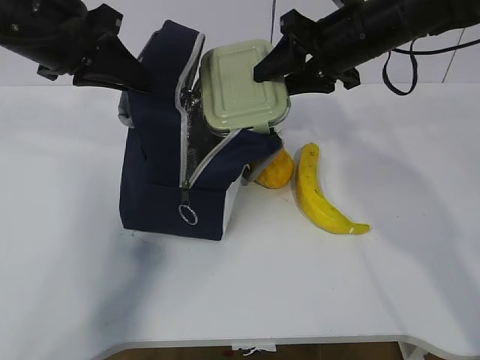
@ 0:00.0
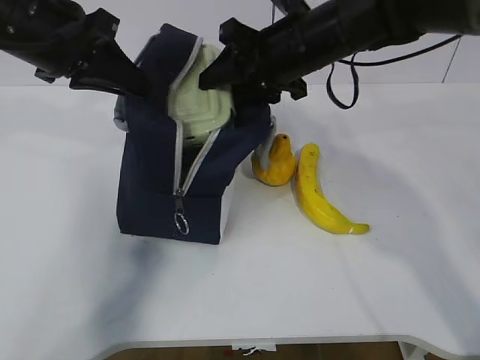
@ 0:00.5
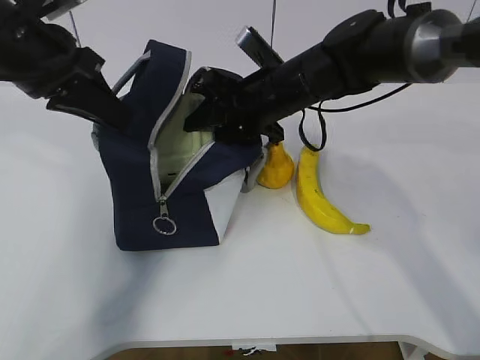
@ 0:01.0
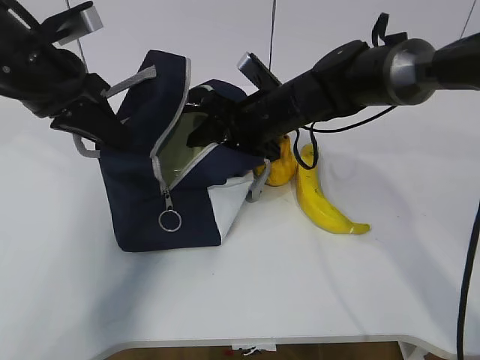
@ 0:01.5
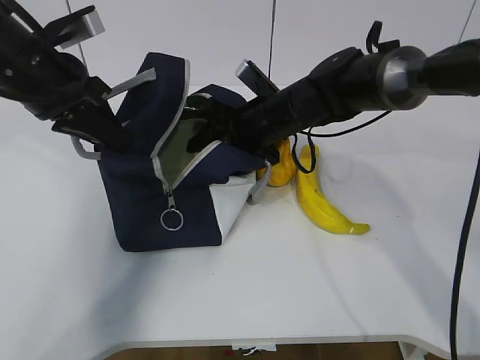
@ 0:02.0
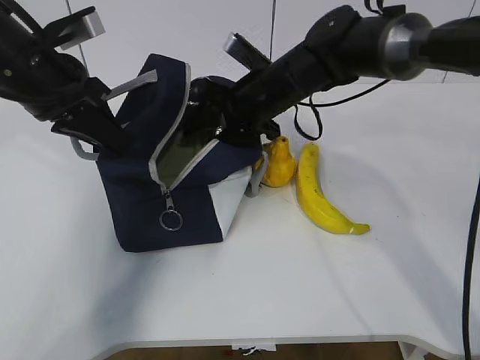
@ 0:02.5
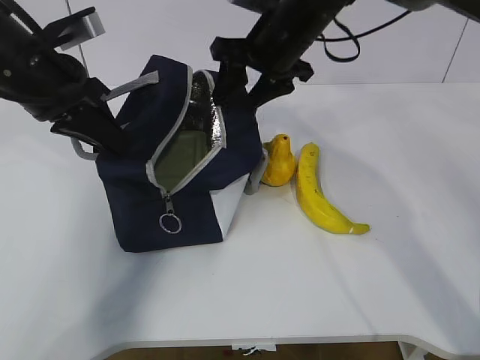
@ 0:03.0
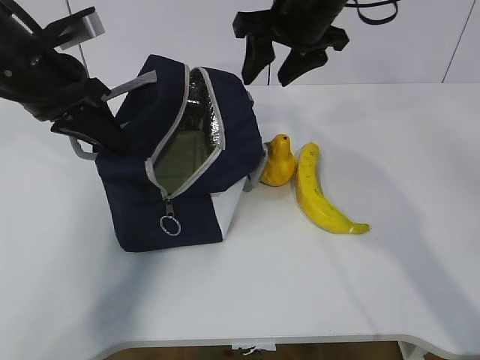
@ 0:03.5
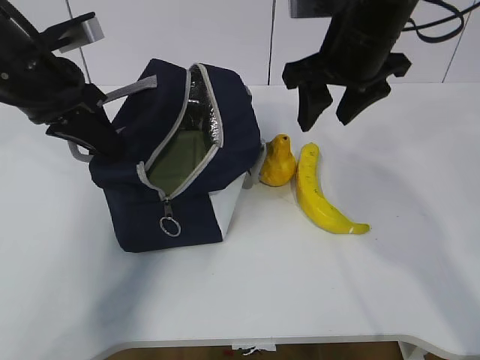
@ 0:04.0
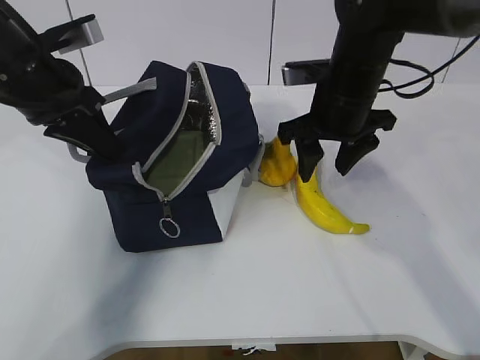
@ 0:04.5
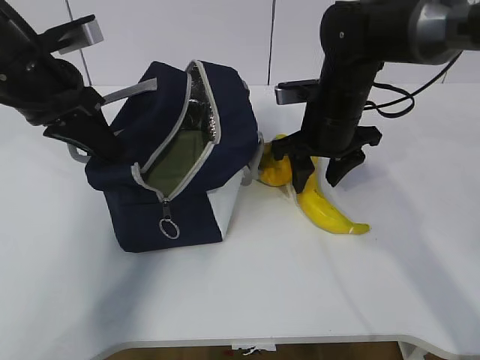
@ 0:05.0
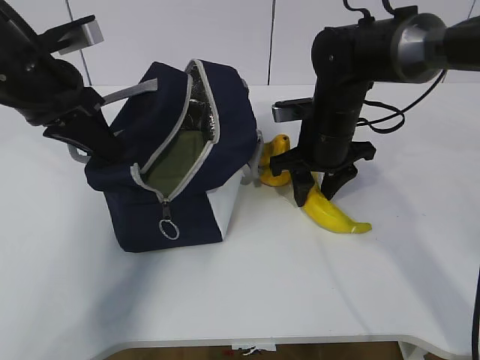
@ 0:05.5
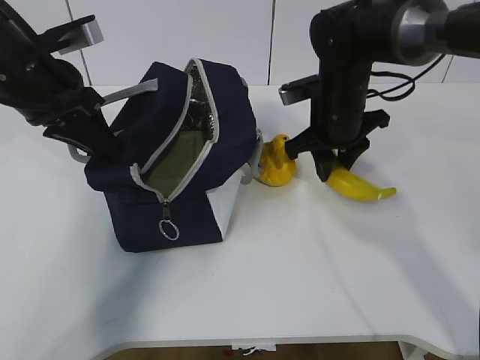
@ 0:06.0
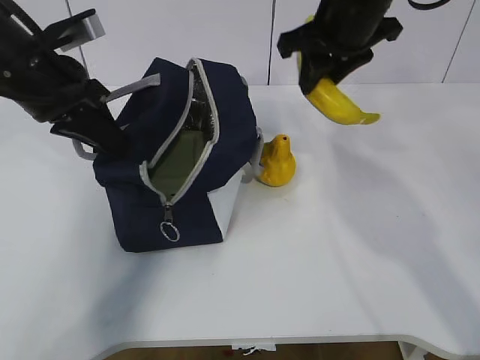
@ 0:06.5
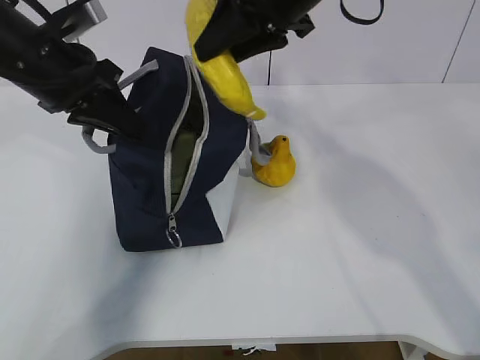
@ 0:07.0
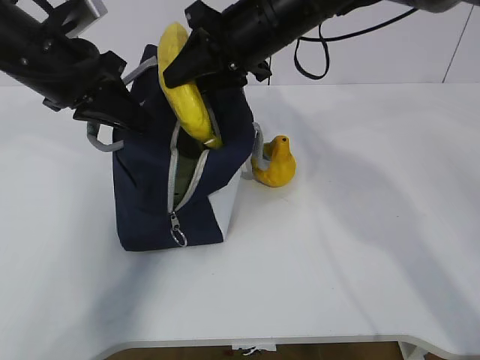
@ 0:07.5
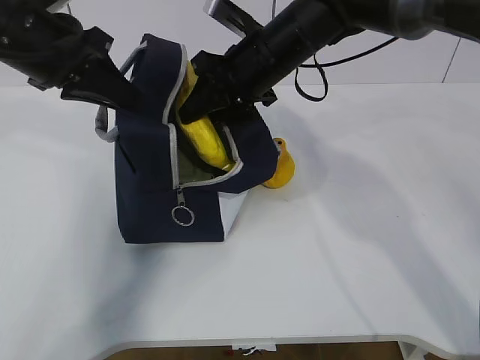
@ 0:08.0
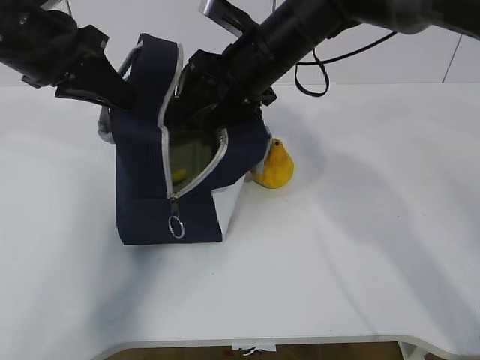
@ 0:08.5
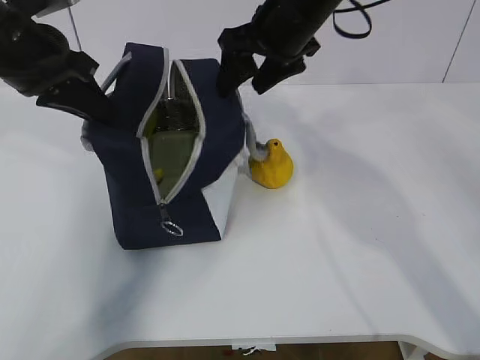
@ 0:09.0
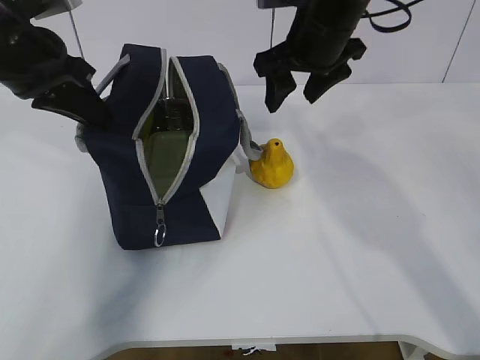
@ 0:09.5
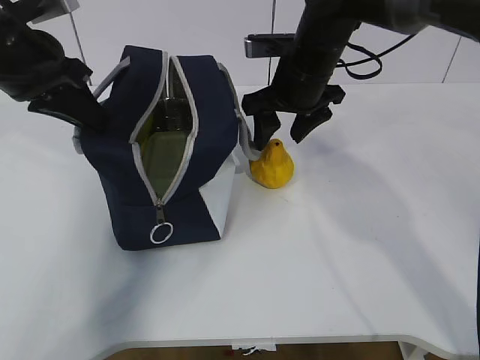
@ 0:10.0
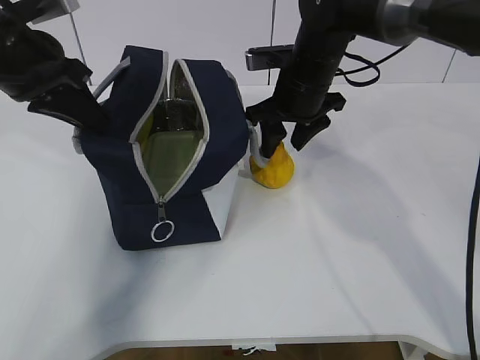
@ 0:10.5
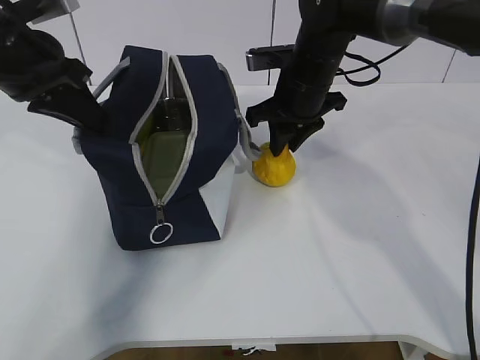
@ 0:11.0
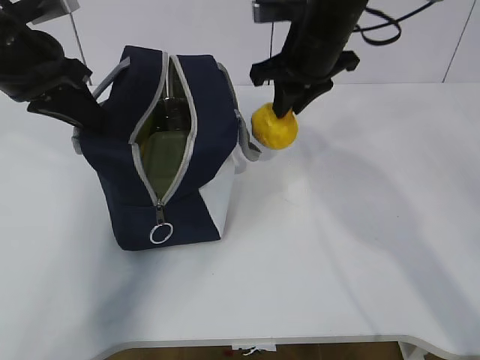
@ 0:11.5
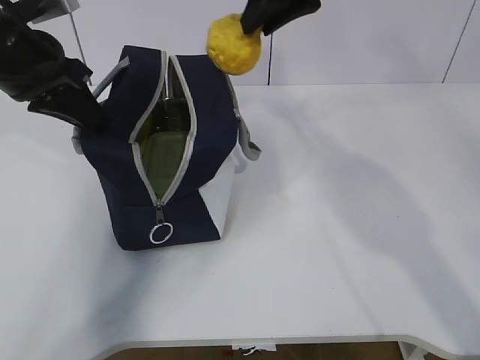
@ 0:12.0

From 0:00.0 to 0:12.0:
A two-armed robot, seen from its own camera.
Step, from 0:00.0 to 0:02.0: Grab the banana with your right hand.
Step, from 0:02.5 to 0:04.0: Place it into the bag with your right hand.
Step, from 0:04.5 to 0:06.5: Grab the pear with your right hand.
Step, from 0:07.0 to 0:08.0: Secure the lunch bag with your left hand.
Step, from 0:08.5 to 0:09.0: Grab the lunch bag with your right hand.
Step, from 0:09.5 to 0:11.0: Move the lunch bag to the right.
From 0:00.0 to 0:02.0: The right gripper travels downward and to the left by approximately 15 cm.
From 0:02.0 to 0:04.0: The right gripper shifts some 15 cm upward and to the right.
From 0:04.0 to 0:06.0: The right gripper is displaced downward by some 10 cm, and closes.
From 0:06.0 to 0:08.0: The right gripper goes roughly 10 cm to the left and upward.
From 0:08.0 to 0:10.0: The right gripper opens its fingers.
From 0:10.0 to 0:12.0: The right gripper heads upward, covering about 15 cm, and closes.

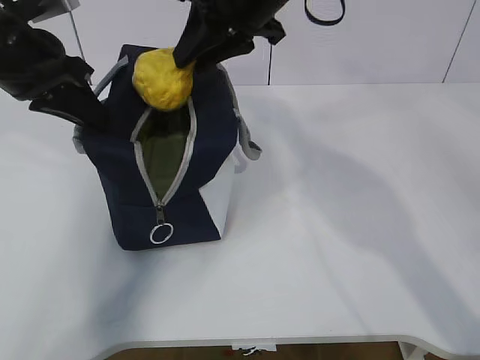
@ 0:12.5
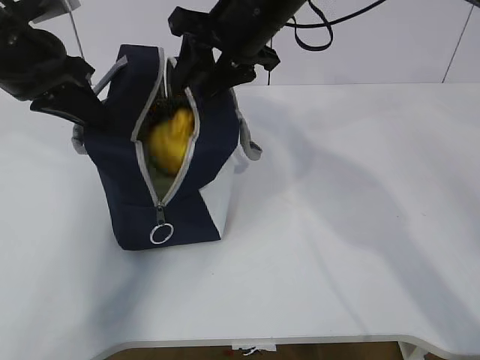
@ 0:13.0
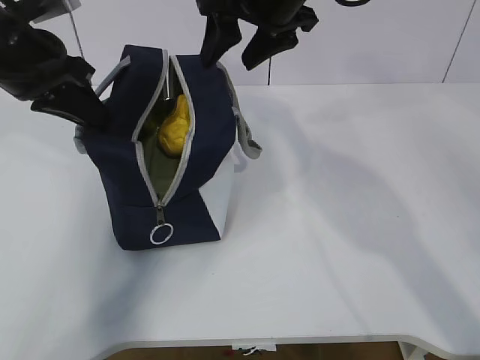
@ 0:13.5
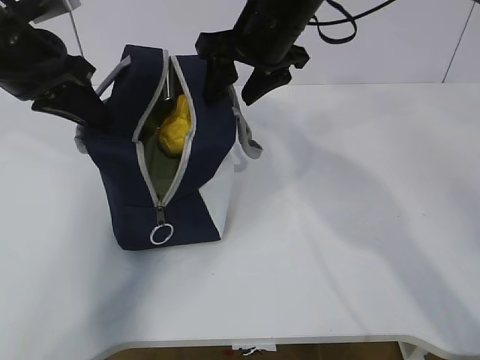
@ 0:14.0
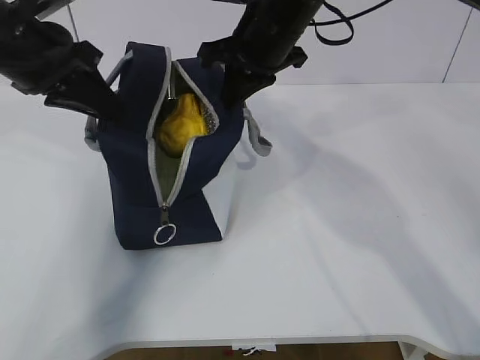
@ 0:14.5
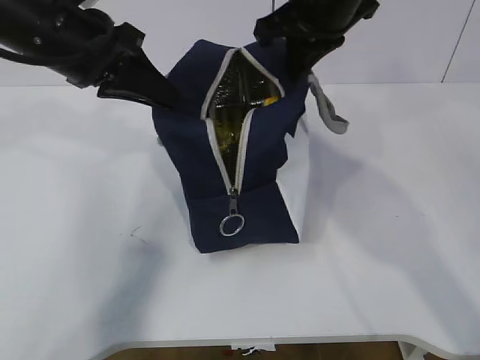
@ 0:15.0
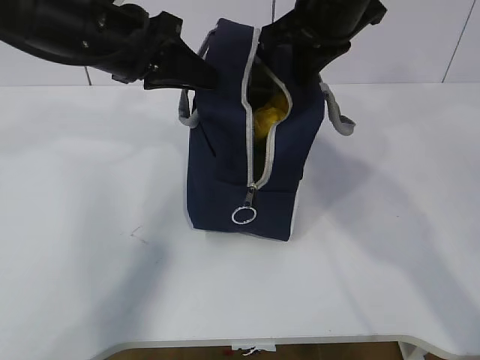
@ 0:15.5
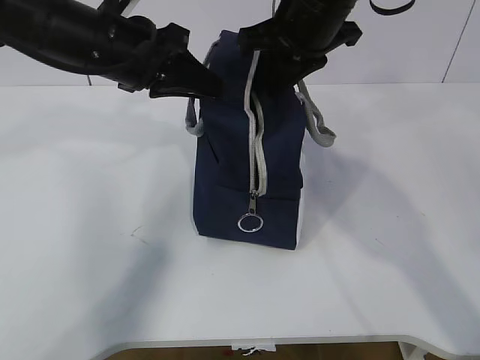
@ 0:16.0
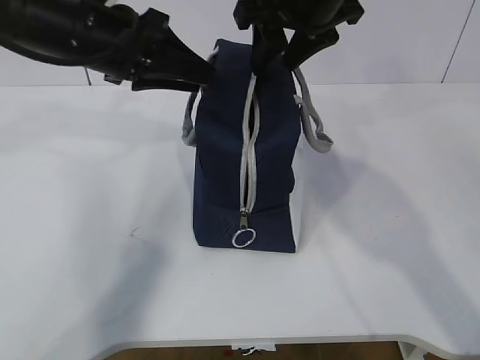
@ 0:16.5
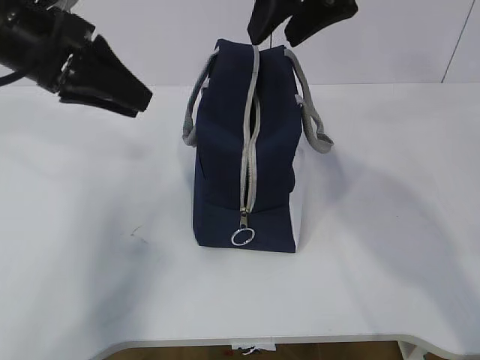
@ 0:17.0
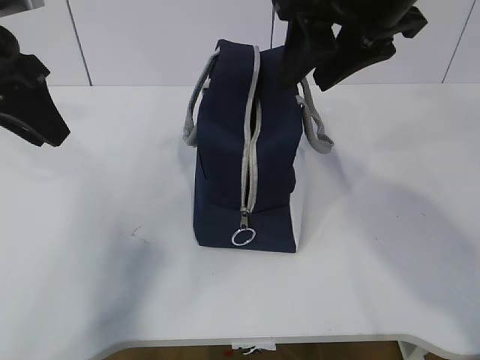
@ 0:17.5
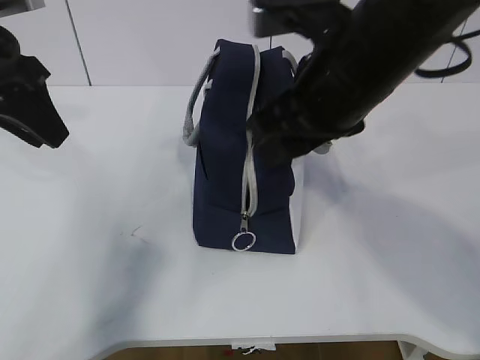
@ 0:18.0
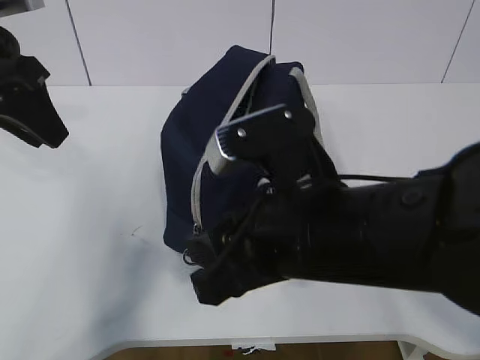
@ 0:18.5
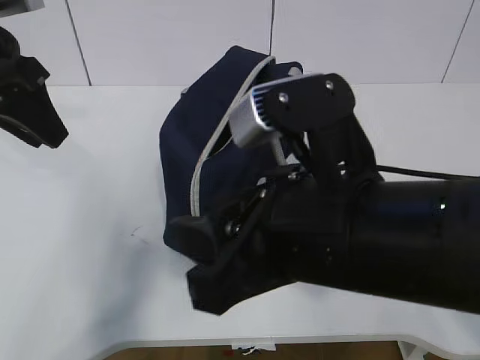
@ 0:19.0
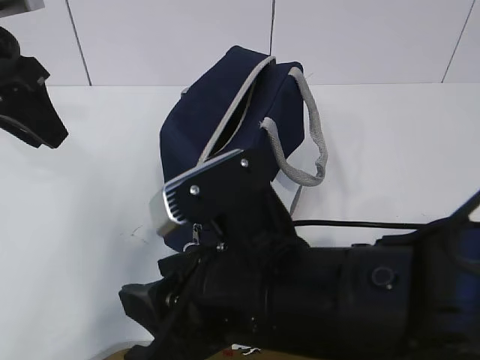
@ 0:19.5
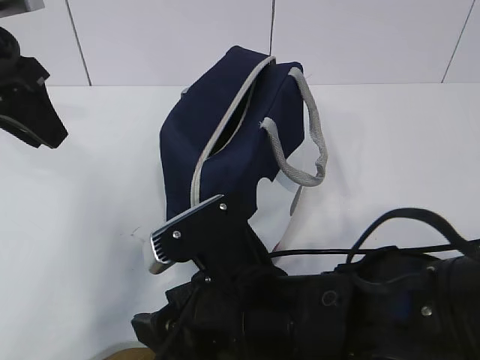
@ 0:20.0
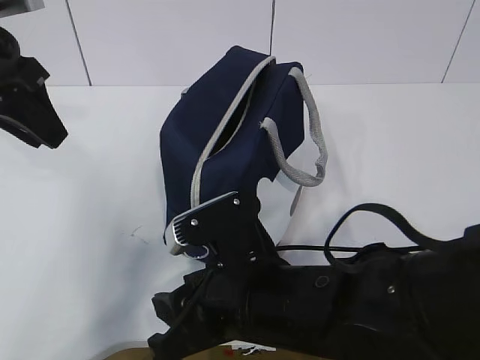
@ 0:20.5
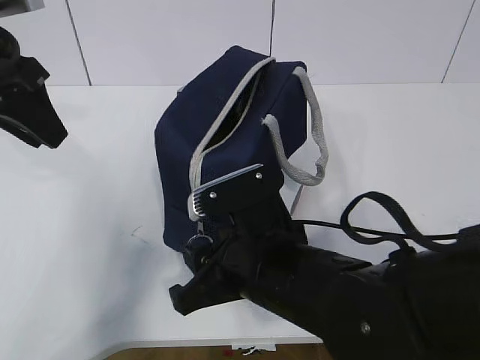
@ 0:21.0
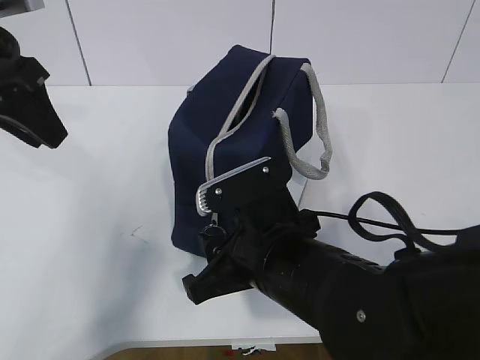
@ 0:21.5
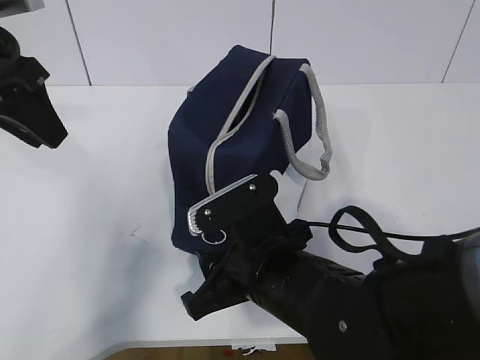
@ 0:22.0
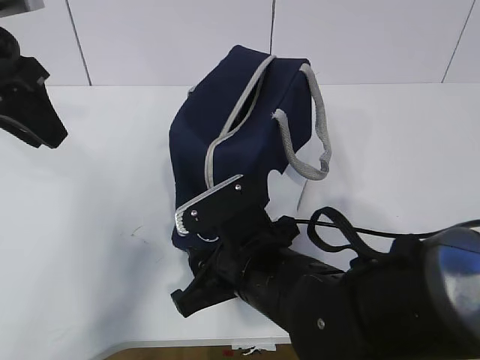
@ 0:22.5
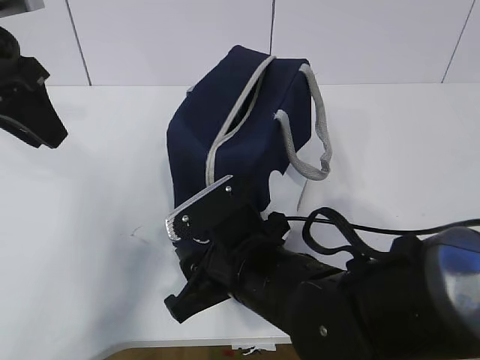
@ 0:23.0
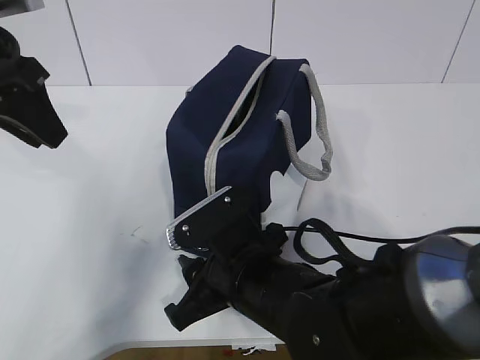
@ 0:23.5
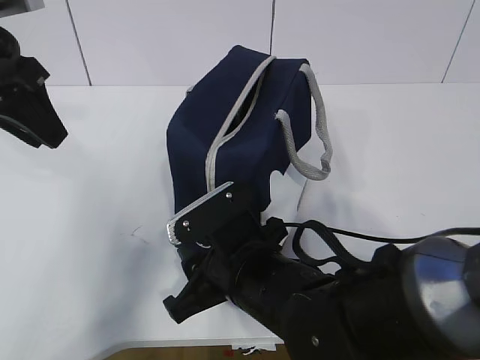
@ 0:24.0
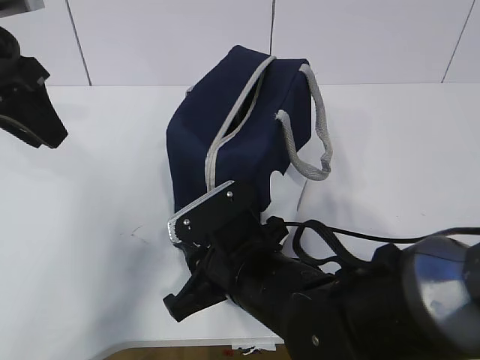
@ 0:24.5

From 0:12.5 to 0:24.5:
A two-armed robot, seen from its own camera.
From 0:12.5 to 0:14.5: The right gripper heads downward, covering roughly 5 cm, and opens, then closes once more.
From 0:14.5 to 0:16.5: The right gripper goes some 5 cm upward, and opens up; the left gripper shifts roughly 5 cm to the right, and opens its fingers.
From 0:16.5 to 0:18.5: The right gripper is displaced backward and downward by some 25 cm, while the left gripper is displaced to the left by roughly 10 cm.
From 0:18.5 to 0:20.5: The right gripper is displaced downward by about 10 cm.
From 0:22.5 to 0:24.5: There are only small adjustments of the grippers.

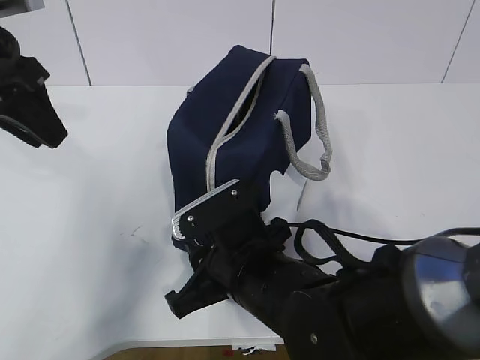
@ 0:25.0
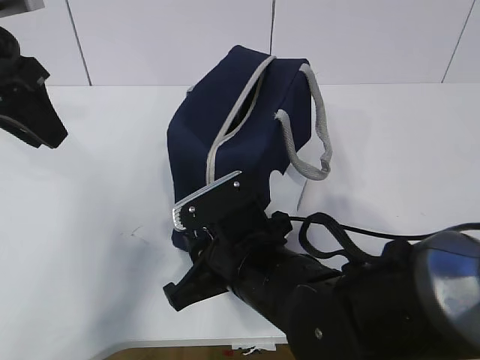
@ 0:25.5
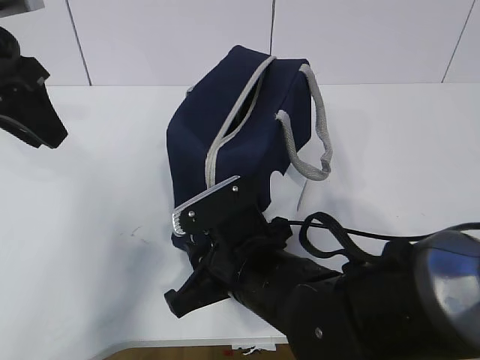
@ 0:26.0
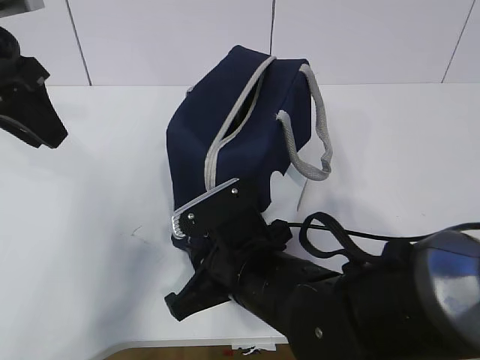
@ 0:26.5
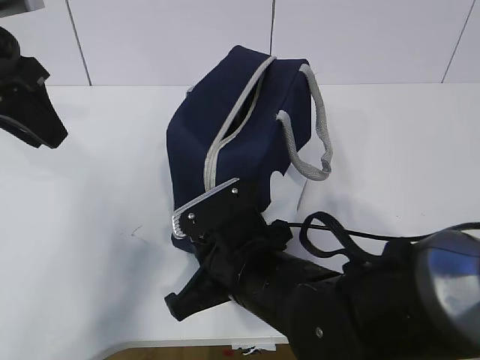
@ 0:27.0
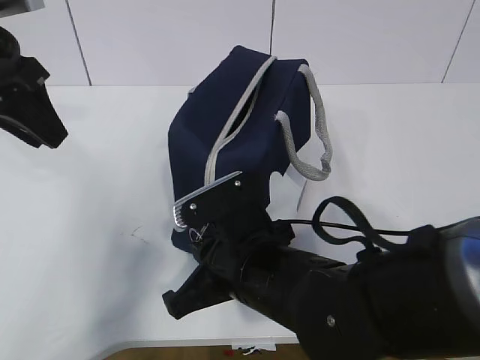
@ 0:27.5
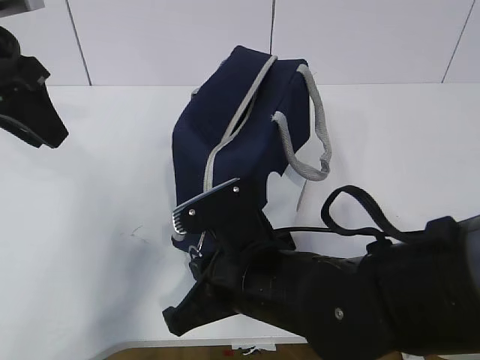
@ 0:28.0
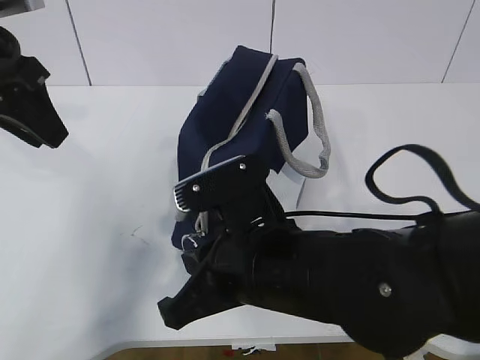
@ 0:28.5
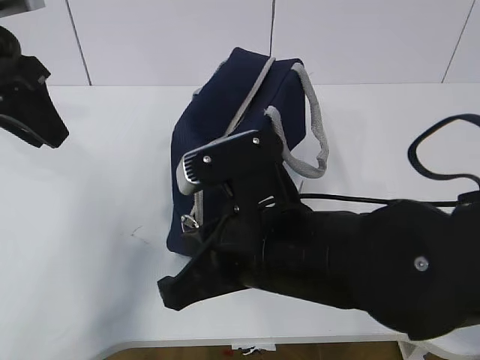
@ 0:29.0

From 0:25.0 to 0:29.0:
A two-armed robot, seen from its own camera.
From 0:25.0 to 0:27.0: Both grippers stay about where they are.
From 0:27.0 to 0:29.0: The right gripper travels upward by some 10 cm.
